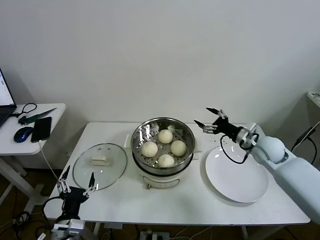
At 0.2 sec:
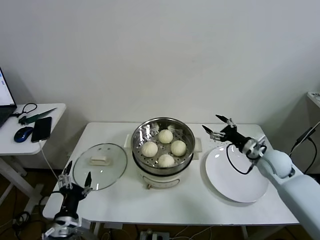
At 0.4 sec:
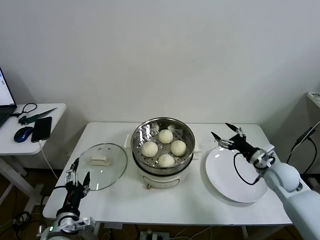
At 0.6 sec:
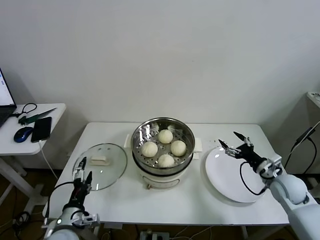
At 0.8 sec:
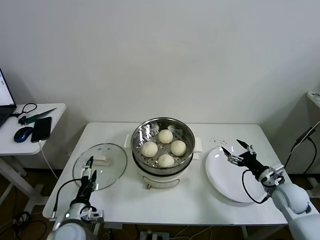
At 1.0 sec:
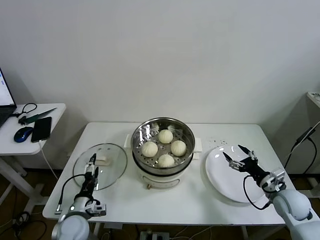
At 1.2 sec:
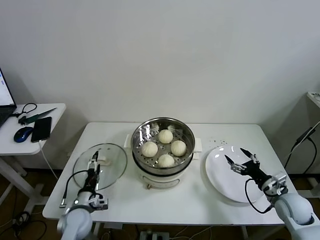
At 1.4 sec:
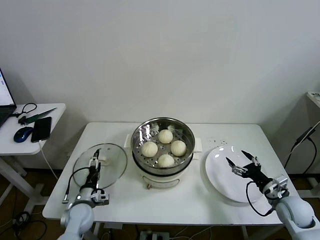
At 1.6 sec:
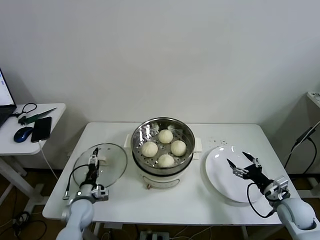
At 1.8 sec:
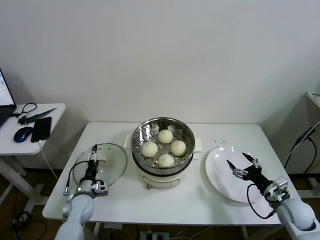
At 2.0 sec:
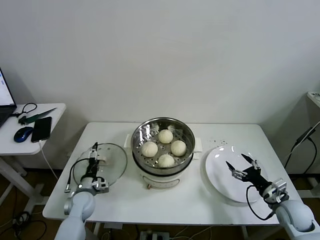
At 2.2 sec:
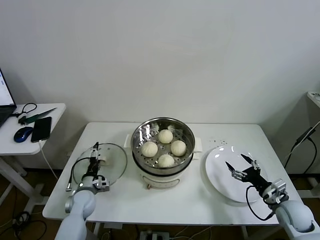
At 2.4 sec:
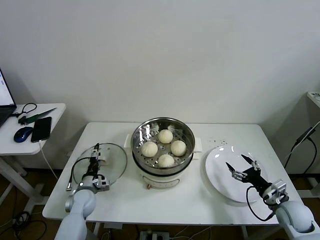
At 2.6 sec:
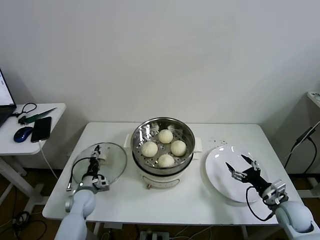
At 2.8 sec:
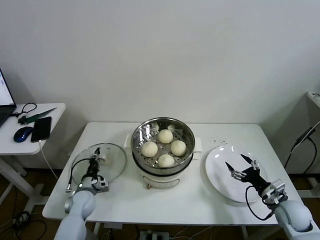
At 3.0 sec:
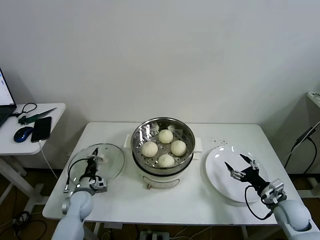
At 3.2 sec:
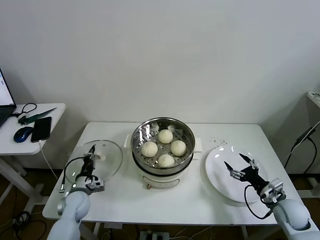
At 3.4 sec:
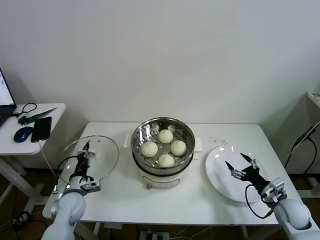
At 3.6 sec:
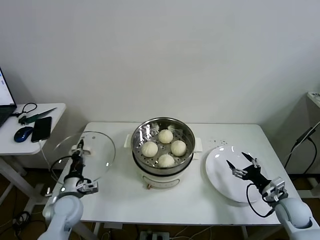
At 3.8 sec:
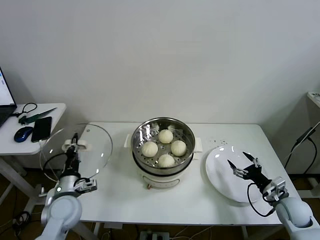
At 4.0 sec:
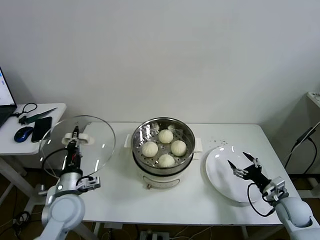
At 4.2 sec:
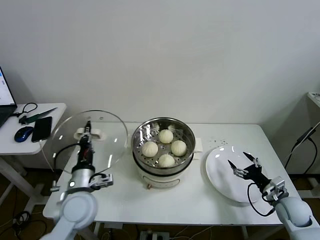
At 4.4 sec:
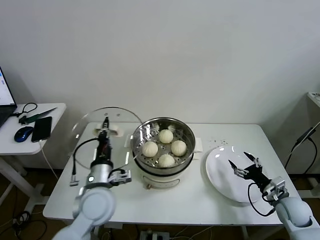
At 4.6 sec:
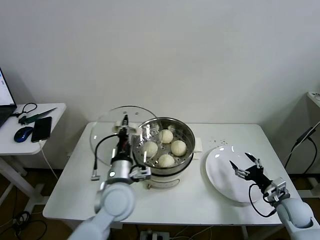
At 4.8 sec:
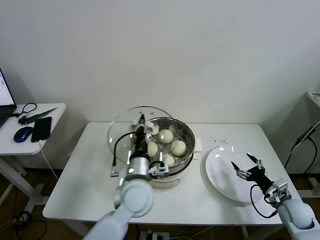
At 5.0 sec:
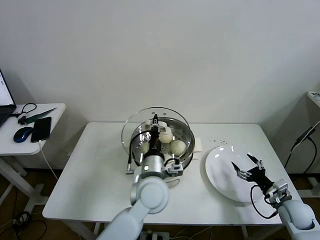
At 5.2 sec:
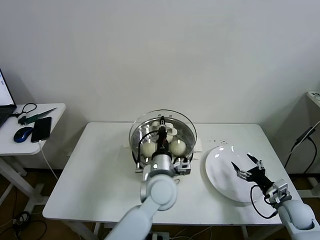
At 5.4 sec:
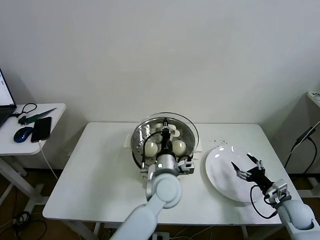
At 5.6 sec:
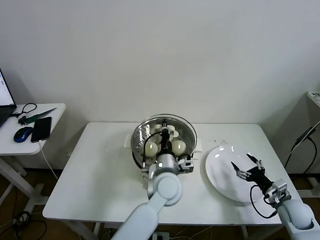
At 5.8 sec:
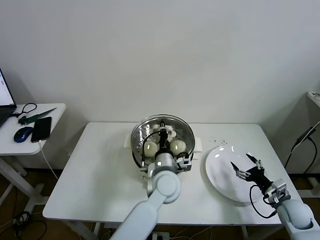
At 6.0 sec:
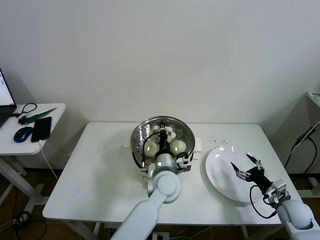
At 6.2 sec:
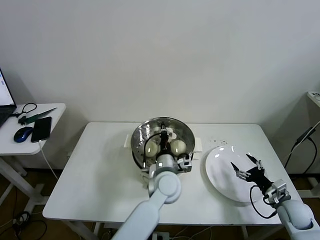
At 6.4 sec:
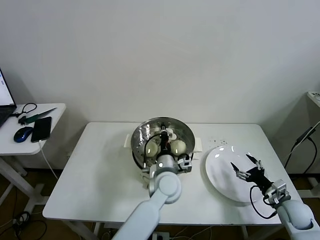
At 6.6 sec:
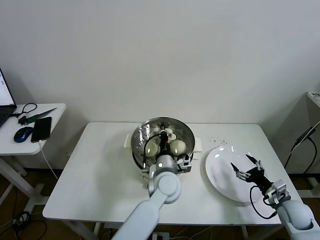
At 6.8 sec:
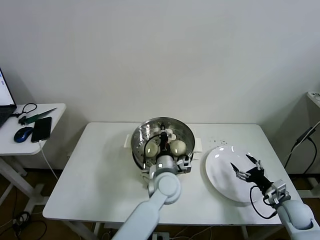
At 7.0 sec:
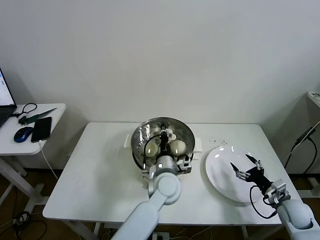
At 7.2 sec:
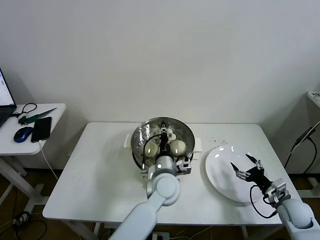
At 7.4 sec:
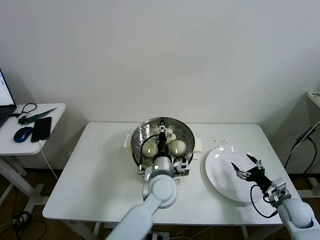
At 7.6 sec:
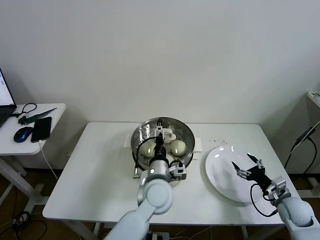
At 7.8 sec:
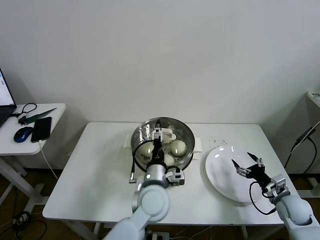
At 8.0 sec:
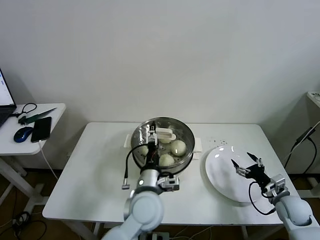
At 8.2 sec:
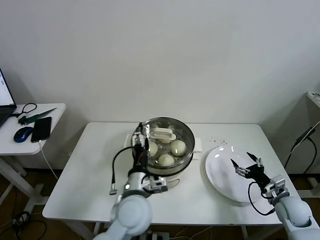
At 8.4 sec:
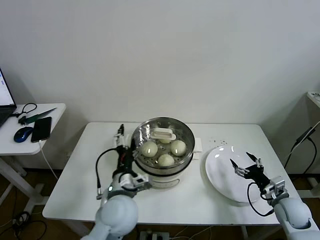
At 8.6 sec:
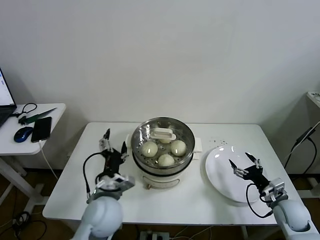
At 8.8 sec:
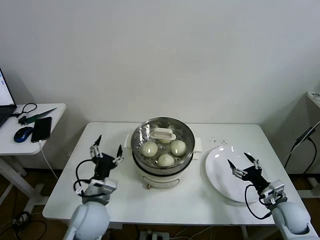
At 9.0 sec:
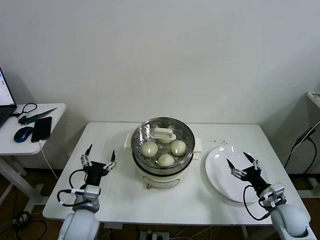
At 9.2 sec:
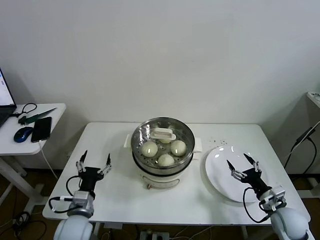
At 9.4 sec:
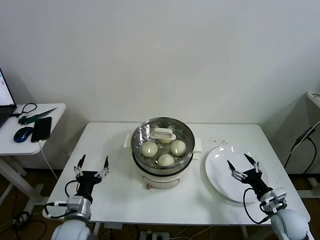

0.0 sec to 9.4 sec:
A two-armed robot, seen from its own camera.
Task of the whole recording: take steamed baozi put them in steamer then cover it.
Step, 0.0 sec to 2.8 sec: Grasp the pot lid with left gripper.
Step, 3.0 sec to 7.2 sec: Place the pot lid on the steamer with left gripper.
0.0 sec to 1.6 sec: The left gripper goes approximately 20 cm forward and downward, while the right gripper moves backward, downward and to the right, roughly 20 cm.
1.6 sec to 3.2 sec: The left gripper closes up.
3.2 sec to 4.8 sec: The left gripper moves to the right and upward, approximately 30 cm.
4.8 sec to 6.2 sec: The left gripper heads to the right, forward and downward, covering roughly 10 cm.
6.2 sec to 7.8 sec: The left gripper changes place by some 5 cm, and opens.
7.8 sec to 9.4 sec: The left gripper travels to the left by about 25 cm; the right gripper moves roughly 5 cm.

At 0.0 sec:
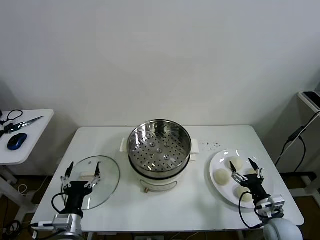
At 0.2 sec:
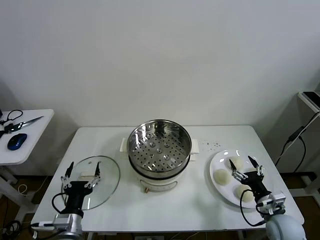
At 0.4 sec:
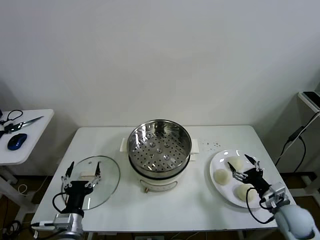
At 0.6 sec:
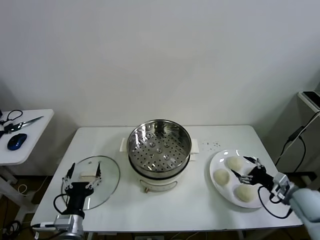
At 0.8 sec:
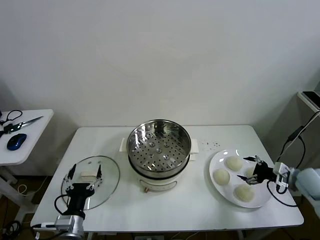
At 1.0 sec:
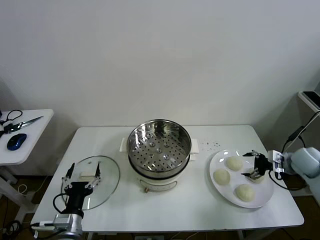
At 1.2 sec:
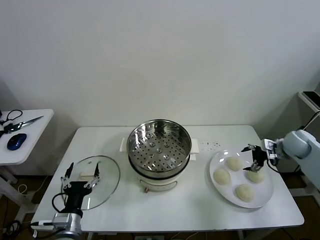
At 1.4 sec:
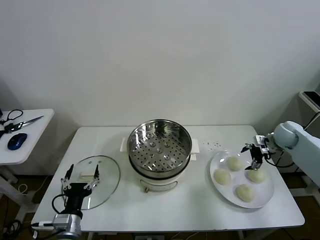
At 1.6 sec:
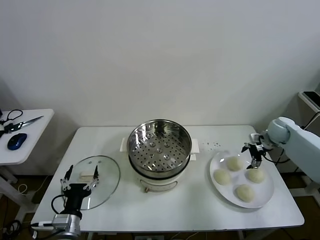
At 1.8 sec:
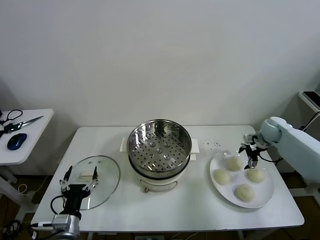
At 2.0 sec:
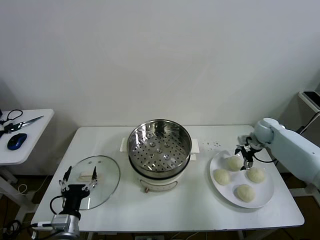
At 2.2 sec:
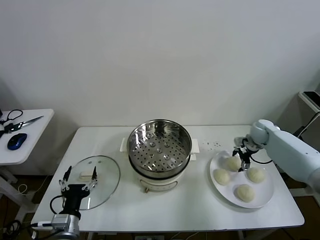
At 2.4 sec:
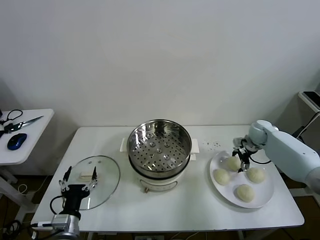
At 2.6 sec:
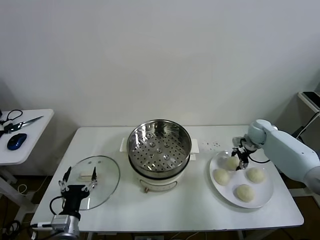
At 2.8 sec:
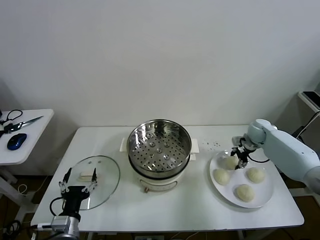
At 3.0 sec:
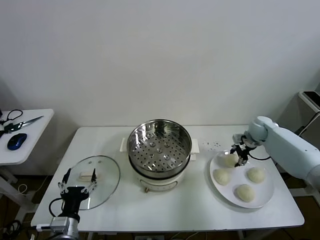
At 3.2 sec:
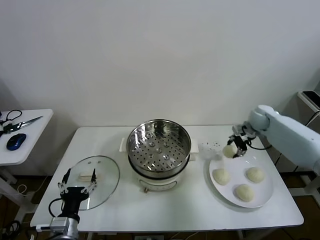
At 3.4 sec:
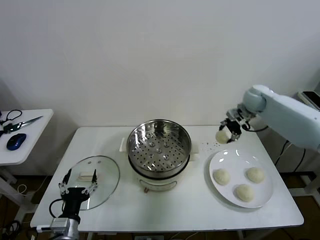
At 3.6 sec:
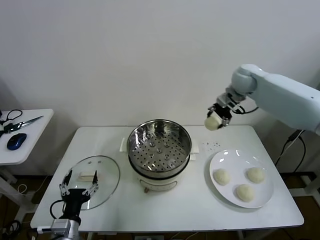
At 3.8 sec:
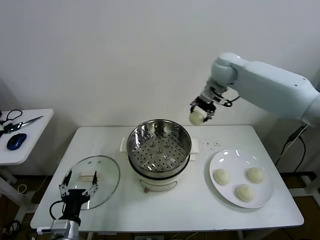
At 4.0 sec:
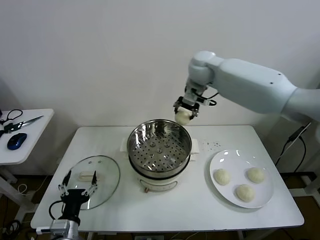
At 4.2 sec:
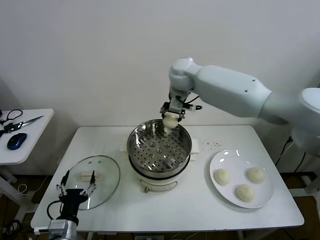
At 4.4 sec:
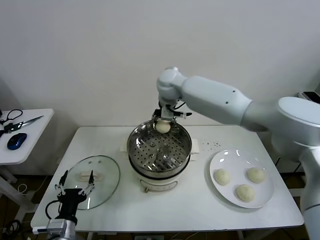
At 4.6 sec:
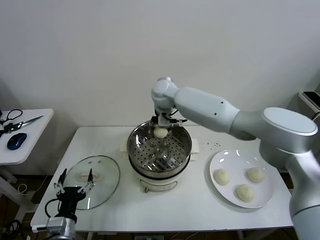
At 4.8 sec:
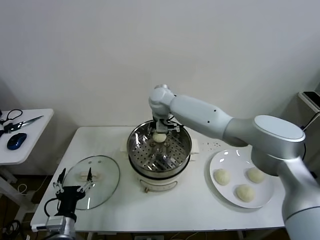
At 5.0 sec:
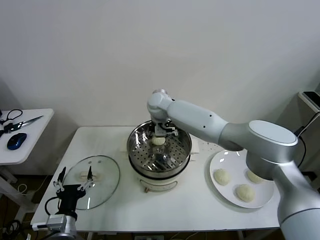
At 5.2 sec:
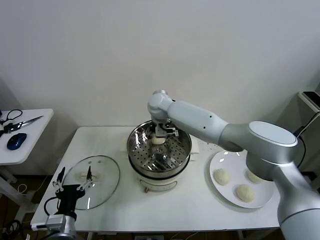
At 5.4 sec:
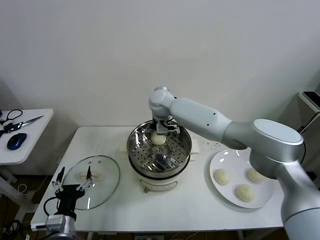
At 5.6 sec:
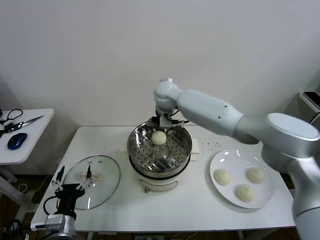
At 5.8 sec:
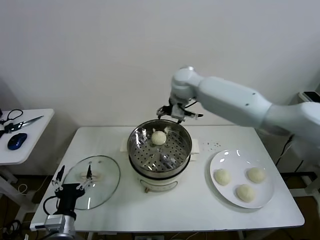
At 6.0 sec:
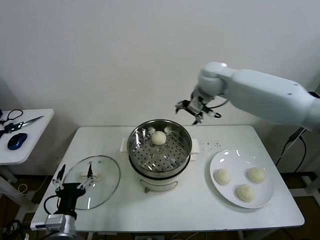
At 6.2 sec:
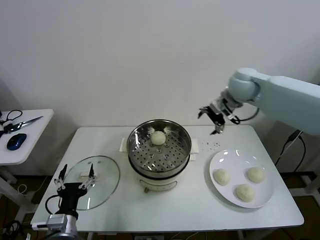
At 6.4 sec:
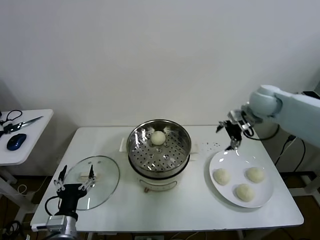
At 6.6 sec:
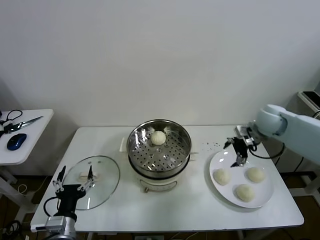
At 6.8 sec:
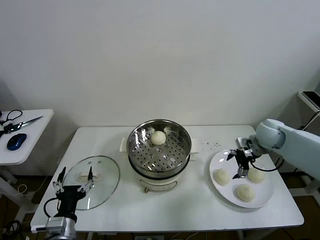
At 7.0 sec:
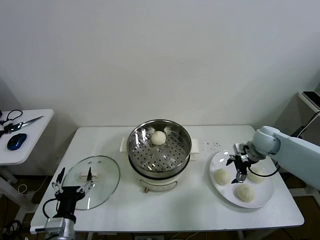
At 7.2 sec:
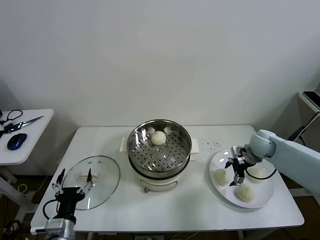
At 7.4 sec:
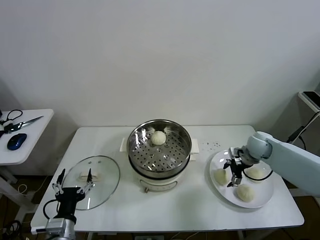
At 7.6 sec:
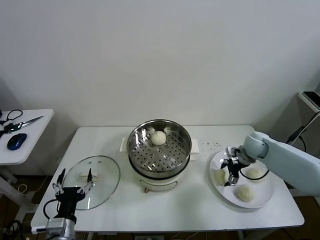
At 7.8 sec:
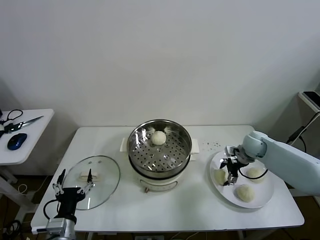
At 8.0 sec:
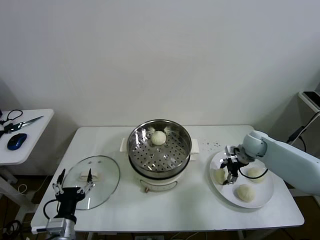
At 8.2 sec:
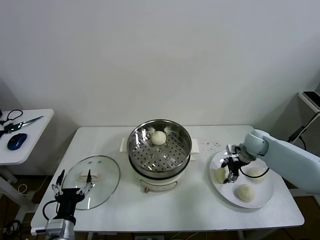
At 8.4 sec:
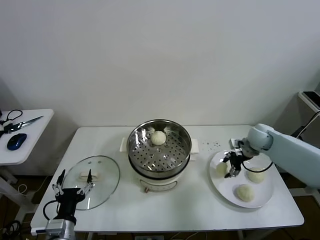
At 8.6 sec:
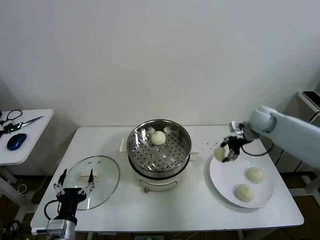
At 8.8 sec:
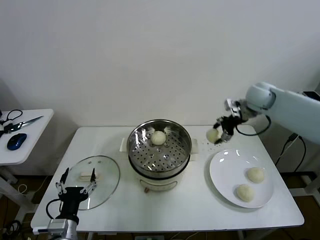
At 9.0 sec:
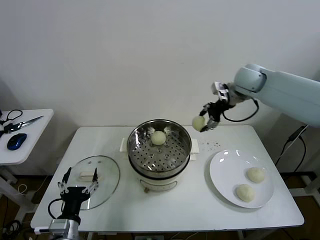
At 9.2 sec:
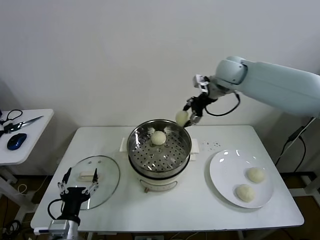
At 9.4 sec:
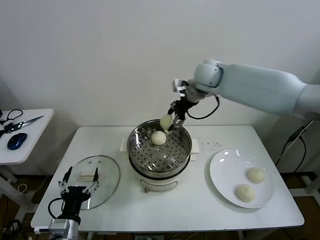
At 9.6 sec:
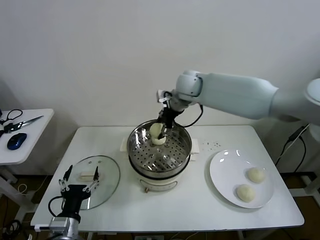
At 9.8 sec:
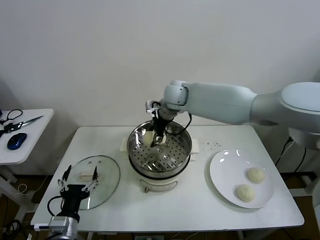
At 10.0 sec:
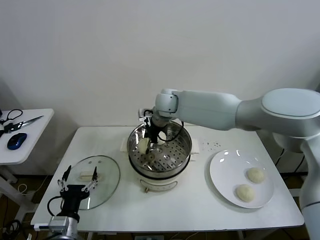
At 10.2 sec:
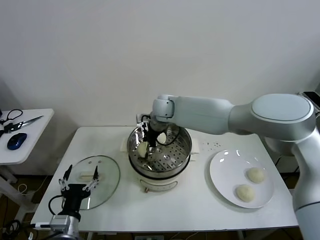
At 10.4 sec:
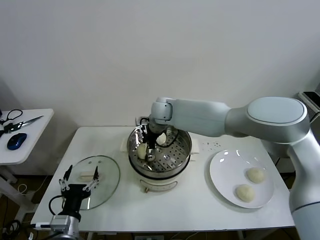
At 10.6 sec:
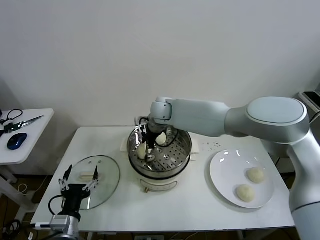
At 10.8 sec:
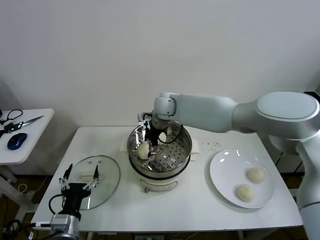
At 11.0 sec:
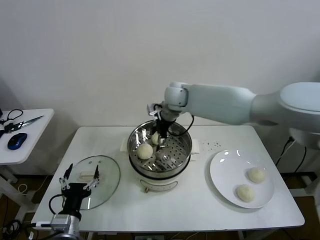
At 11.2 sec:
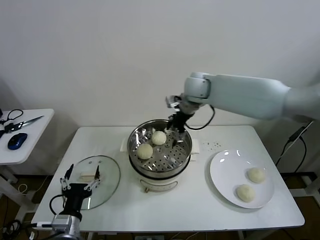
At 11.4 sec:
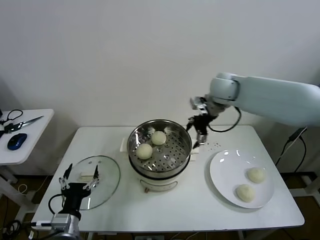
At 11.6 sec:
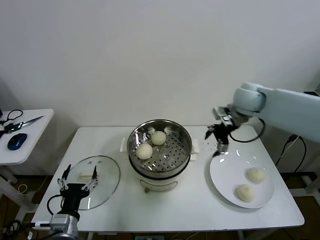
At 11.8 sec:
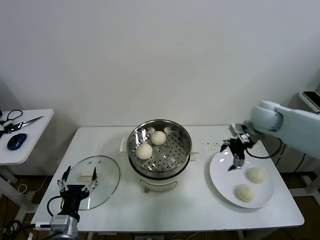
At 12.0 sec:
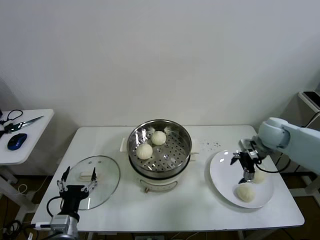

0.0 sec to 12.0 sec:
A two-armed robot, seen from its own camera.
Task of the whole recording: take steamed baozi put them in steamer then cover it.
Step, 0.0 sec to 2.6 sec: Grasp the baozi in the plate with right gripper.
Step, 2.8 sec to 5.2 sec: Place the baozi on the steamer with right gripper.
Step, 5.4 sec to 8.0 sec: Grasp the baozi in the plate with right gripper.
Step, 8.2 sec to 10.6 sec: Place the baozi on the steamer with right gripper.
1.6 sec to 3.0 sec: The right gripper changes place by about 5 cm, and closes.
3.0 sec to 4.4 sec: The right gripper goes about 40 cm to the left and upward.
4.4 sec to 6.0 sec: The right gripper goes about 20 cm to the right, and opens.
6.0 sec to 7.6 sec: The right gripper is displaced downward and to the right by about 30 cm.
7.6 sec to 9.0 sec: The right gripper moves upward and to the left, roughly 30 cm, and closes up.
9.0 sec to 10.4 sec: The right gripper goes some 30 cm to the left and downward, and opens up.
10.4 sec to 12.0 sec: The right gripper moves to the right, about 40 cm.
